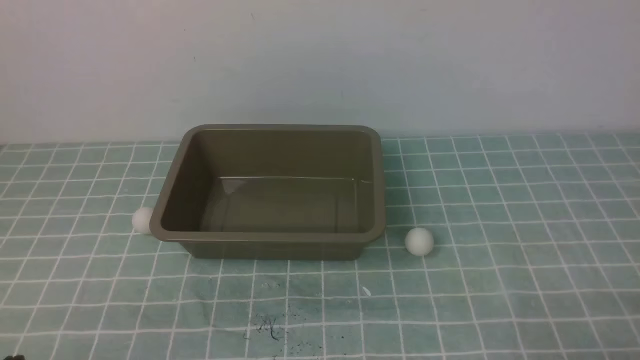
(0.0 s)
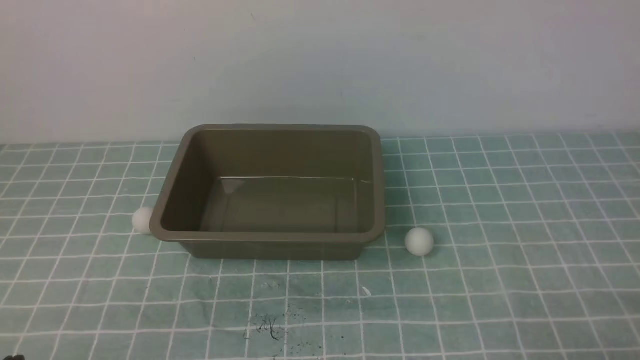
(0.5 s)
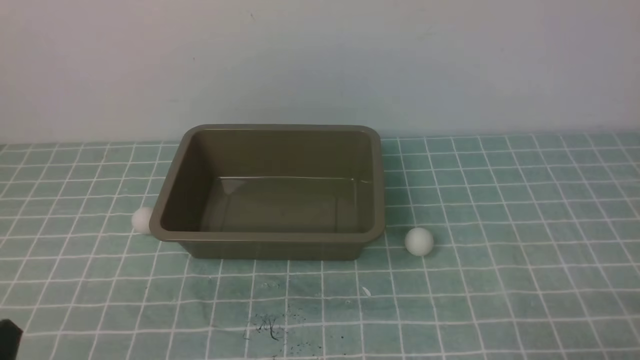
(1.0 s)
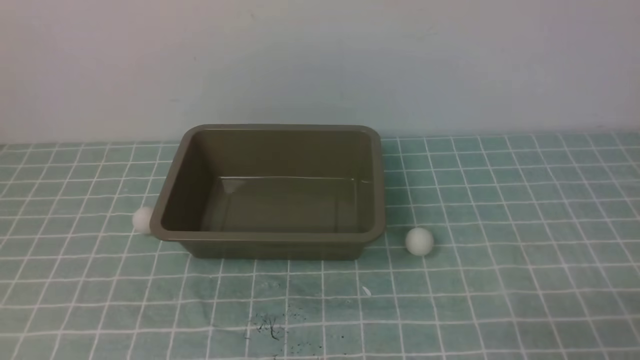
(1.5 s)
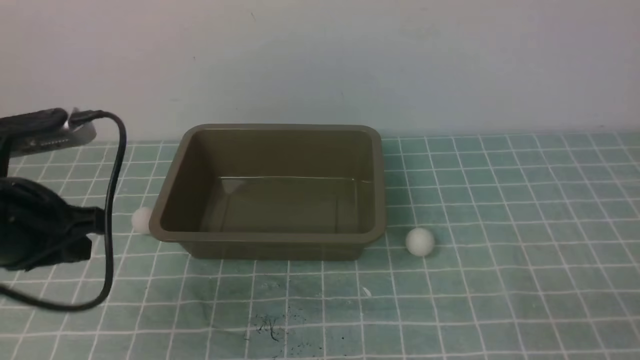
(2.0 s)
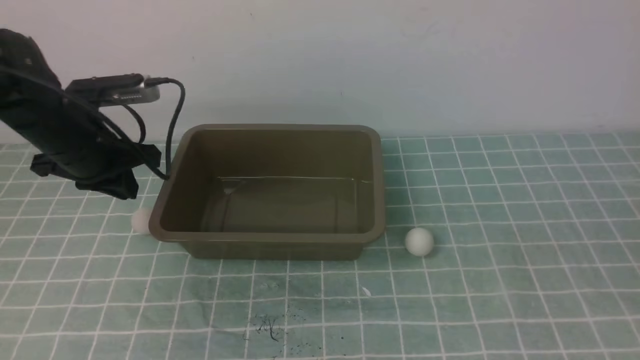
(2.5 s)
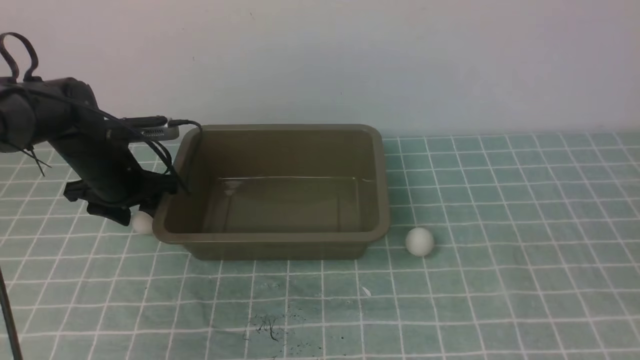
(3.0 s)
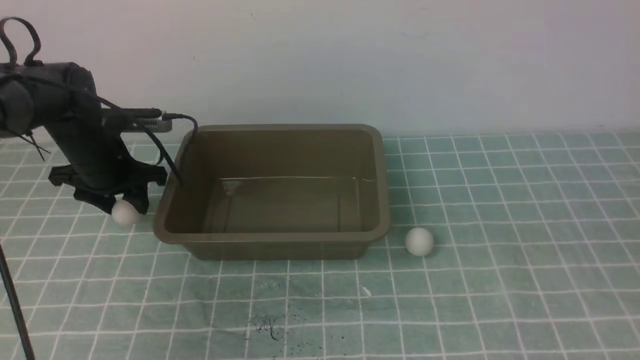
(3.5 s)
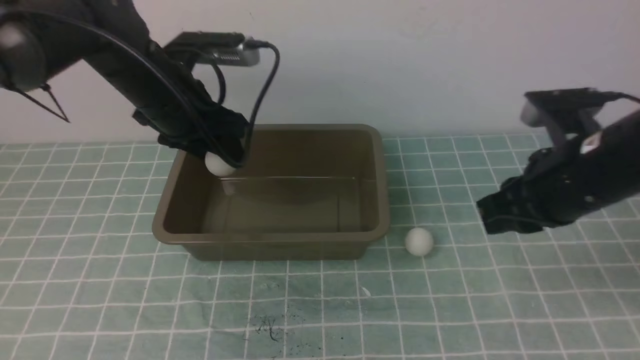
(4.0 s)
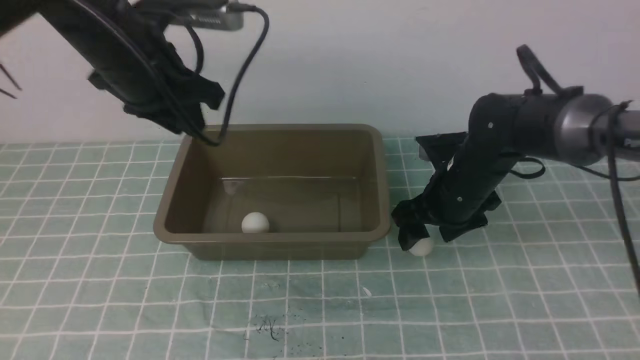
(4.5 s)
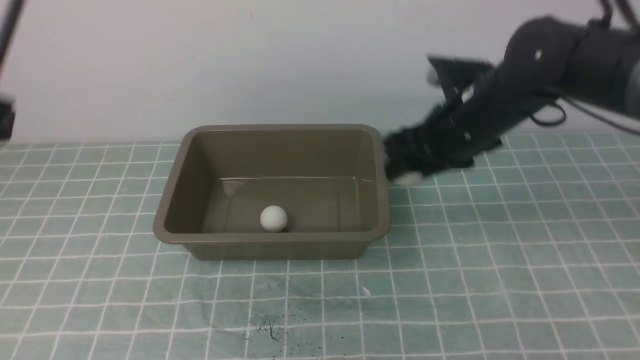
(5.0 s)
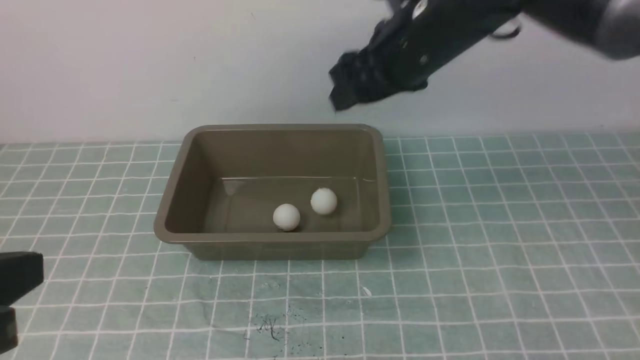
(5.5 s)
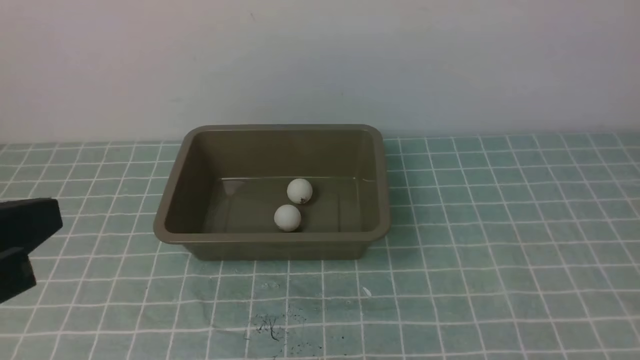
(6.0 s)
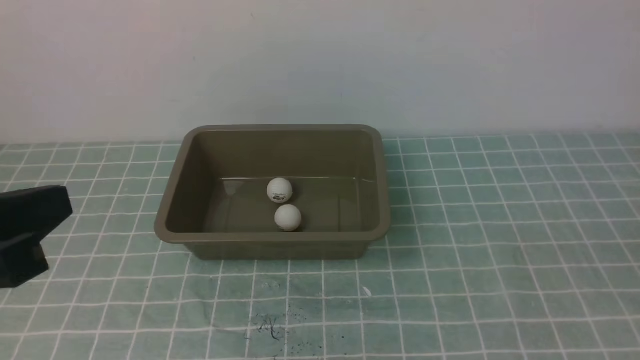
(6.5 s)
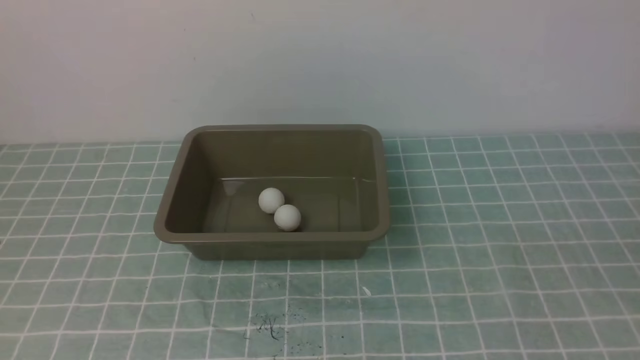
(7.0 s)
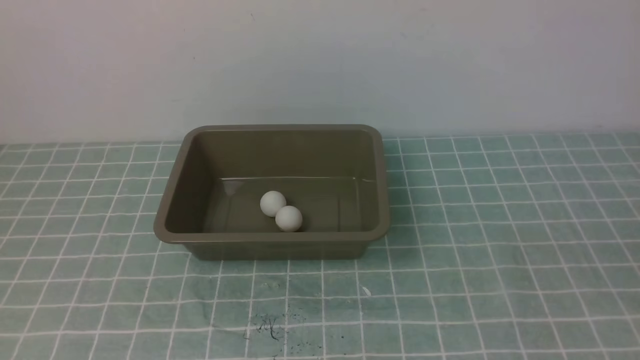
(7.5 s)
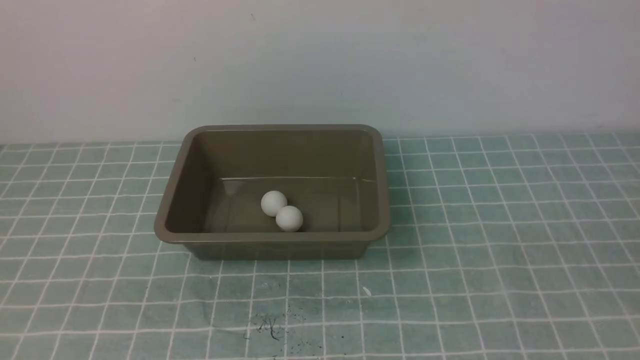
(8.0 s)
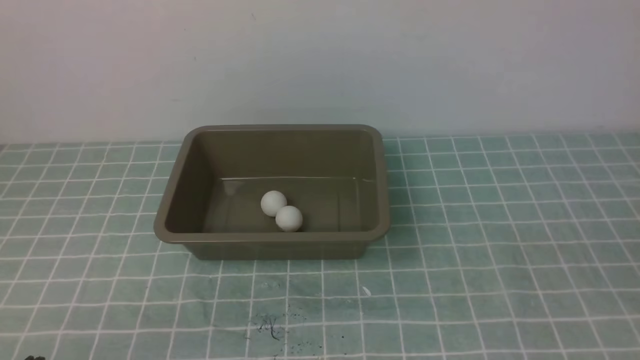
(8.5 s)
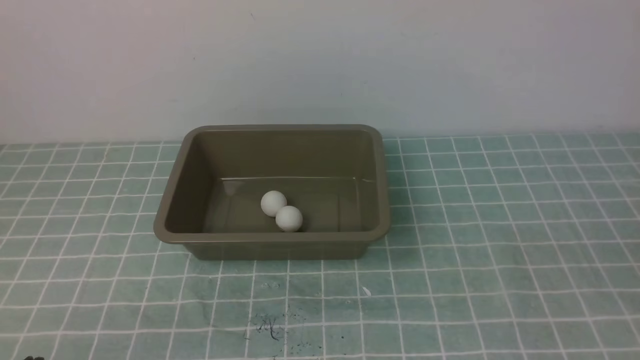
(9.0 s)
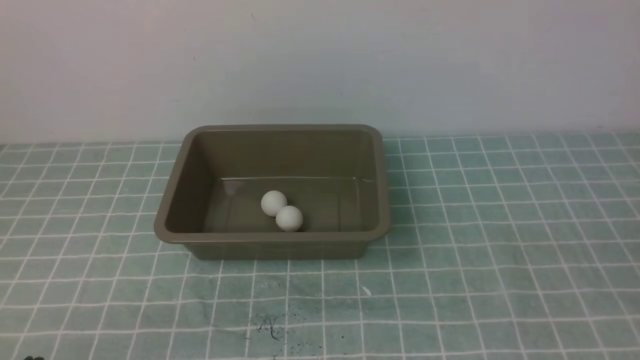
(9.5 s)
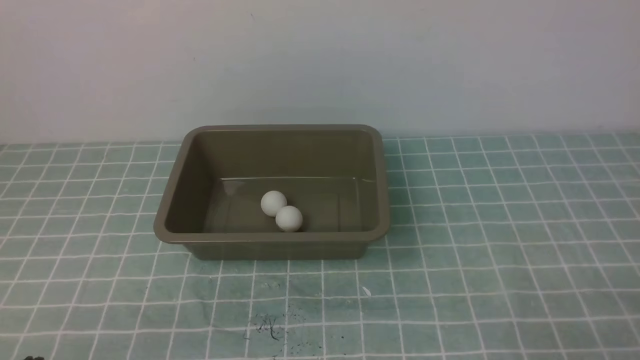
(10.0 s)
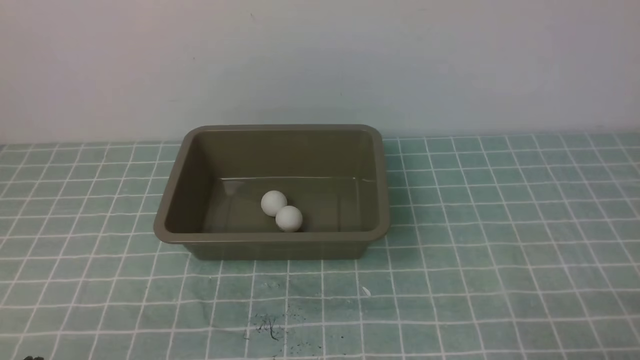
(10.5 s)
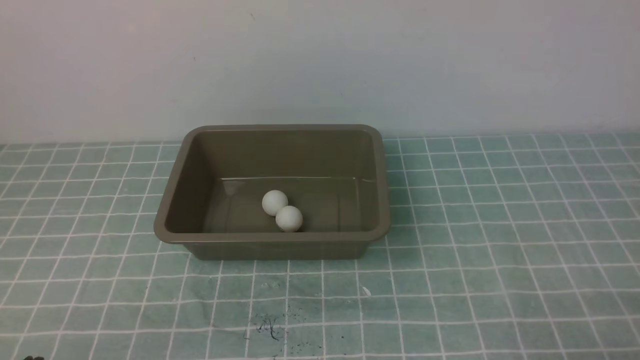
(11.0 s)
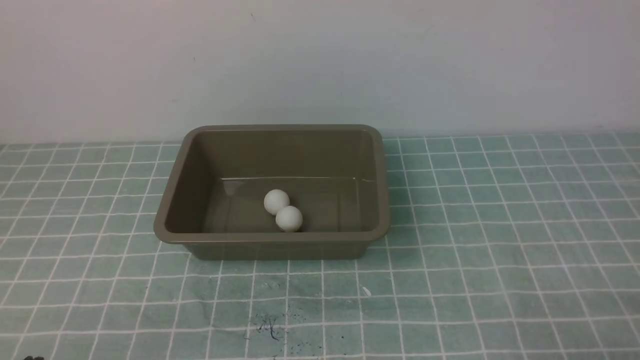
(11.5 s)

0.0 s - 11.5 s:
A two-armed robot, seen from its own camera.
Step, 0.0 s - 3.5 s: use the left arm to clamp the table tennis ball closest to it.
Step, 4.5 s - 5.0 s: use the right arm to clamp the table tennis ball closest to it.
0.0 s - 2.0 s: The right gripper is displaced upward by approximately 5 cm, while the left gripper travels forward and upward by some 20 cm.
2.0 s - 4.0 s: The left gripper goes roughly 20 cm forward and to the right, and opens up, while the right gripper travels forward by roughly 25 cm, and opens its fingers.
4.0 s - 6.0 s: The right gripper shifts about 25 cm upward and backward, and closes its fingers, while the left gripper moves backward, approximately 30 cm, and closes its fingers.
6.0 s - 7.5 s: The left gripper shifts some 5 cm backward.

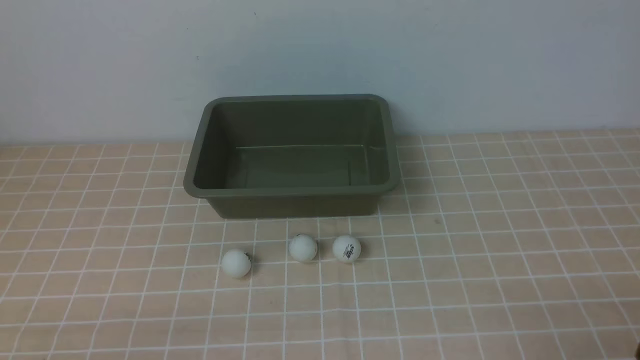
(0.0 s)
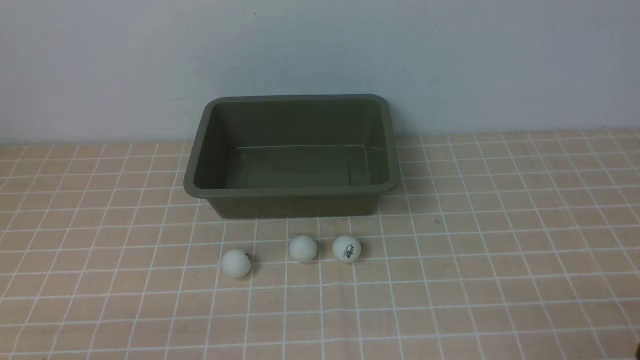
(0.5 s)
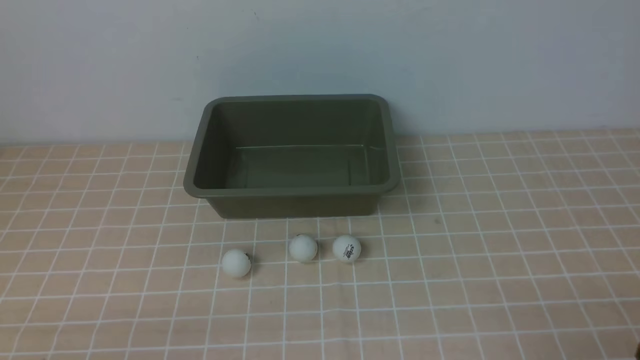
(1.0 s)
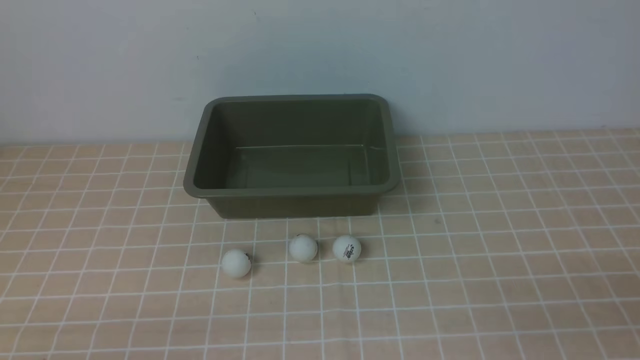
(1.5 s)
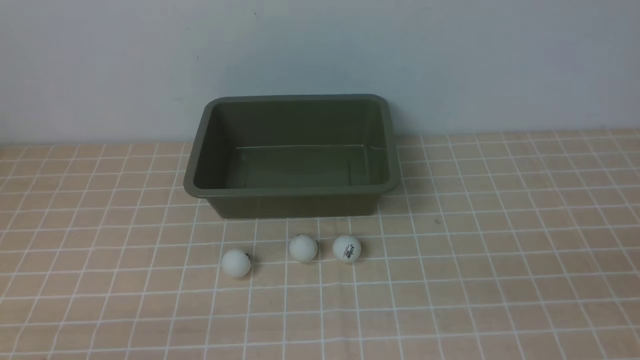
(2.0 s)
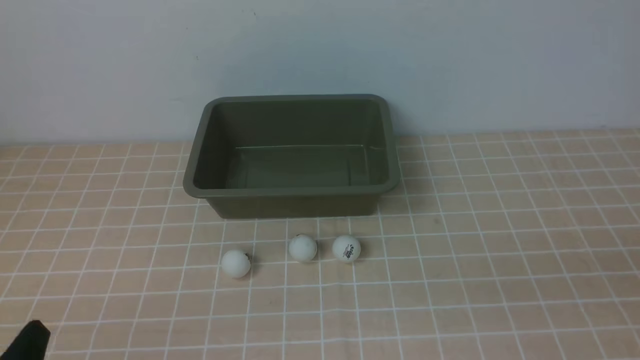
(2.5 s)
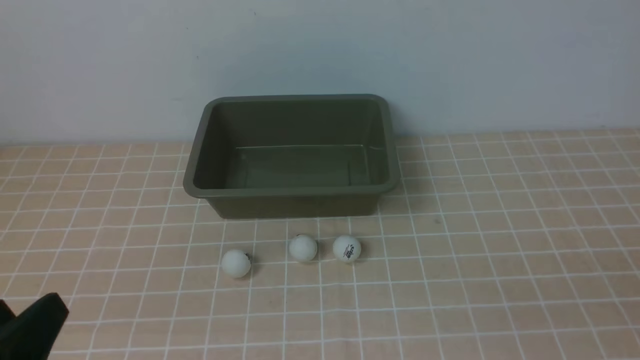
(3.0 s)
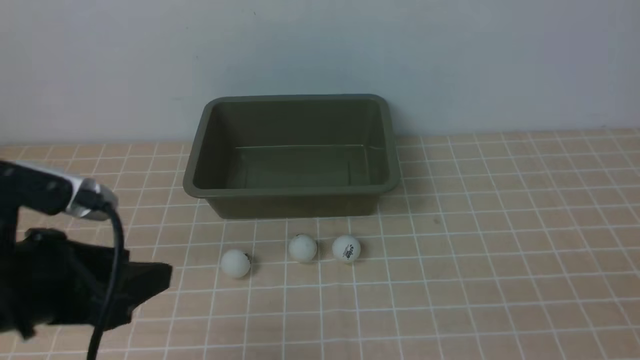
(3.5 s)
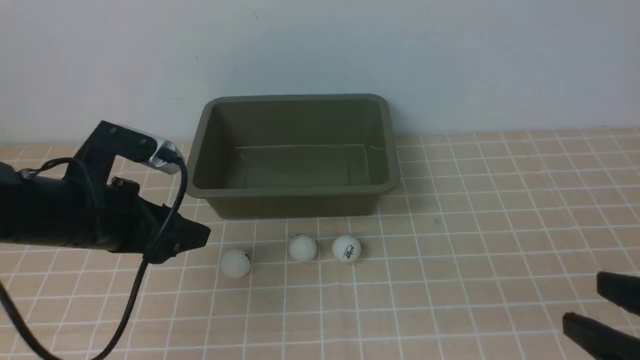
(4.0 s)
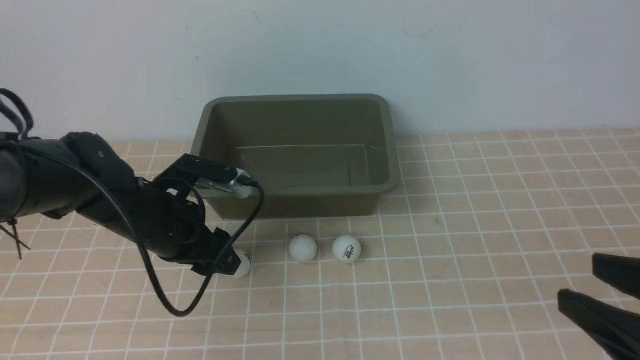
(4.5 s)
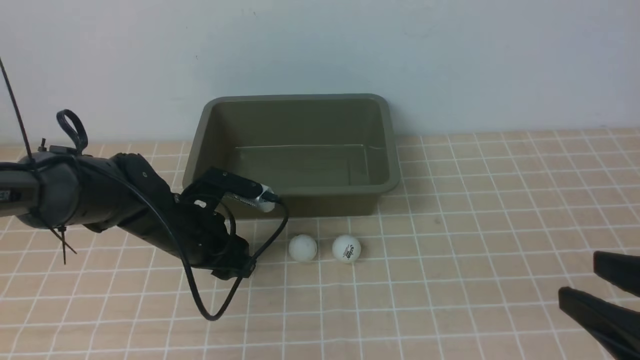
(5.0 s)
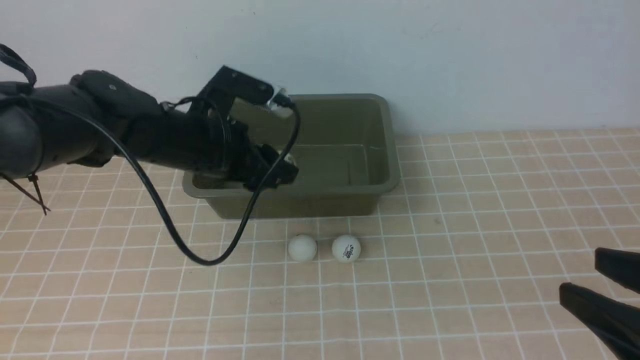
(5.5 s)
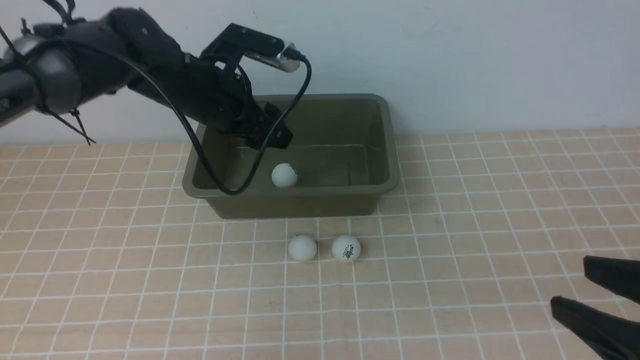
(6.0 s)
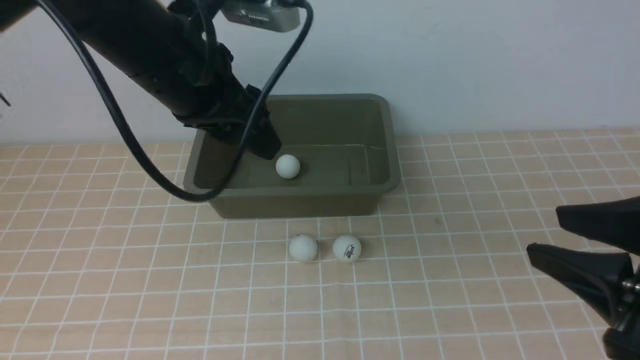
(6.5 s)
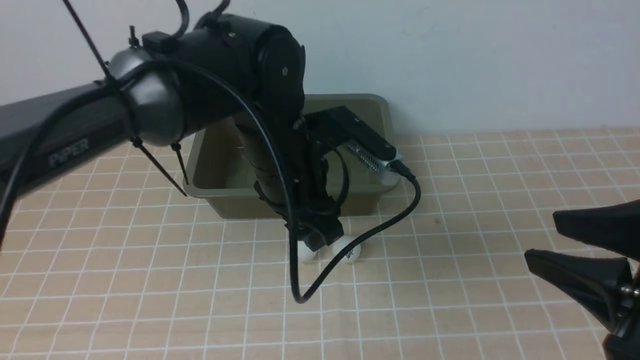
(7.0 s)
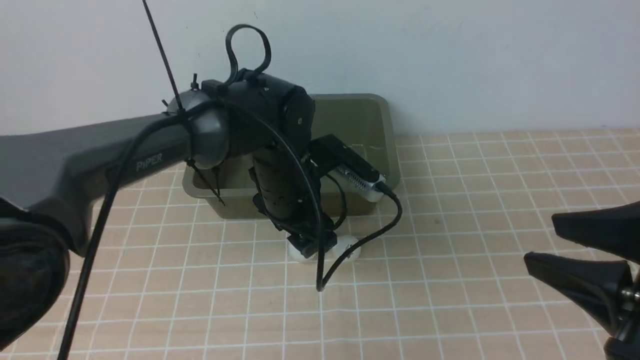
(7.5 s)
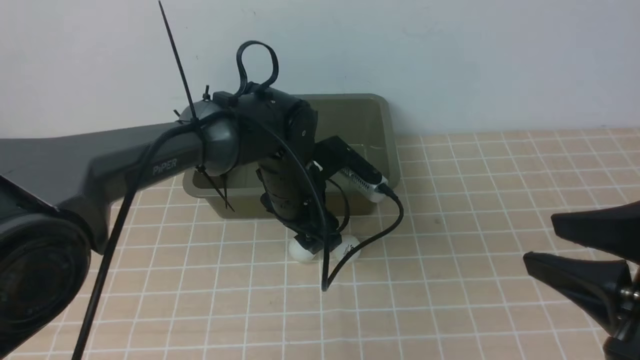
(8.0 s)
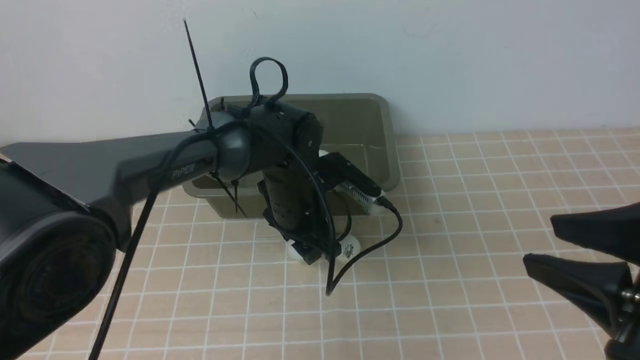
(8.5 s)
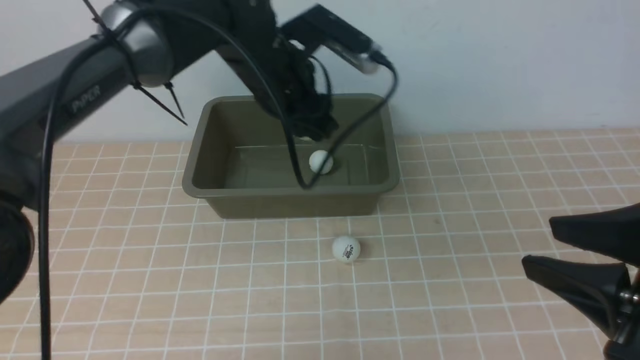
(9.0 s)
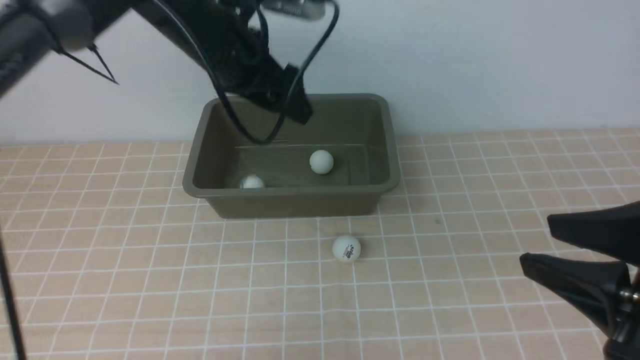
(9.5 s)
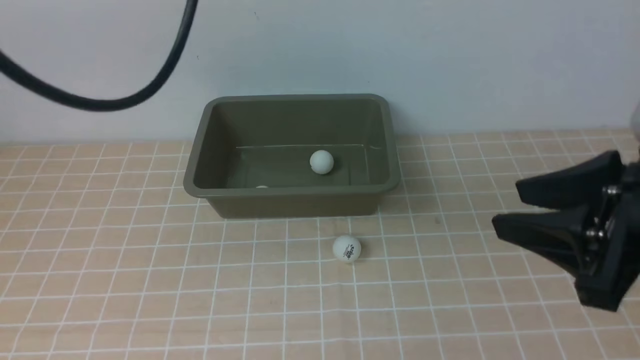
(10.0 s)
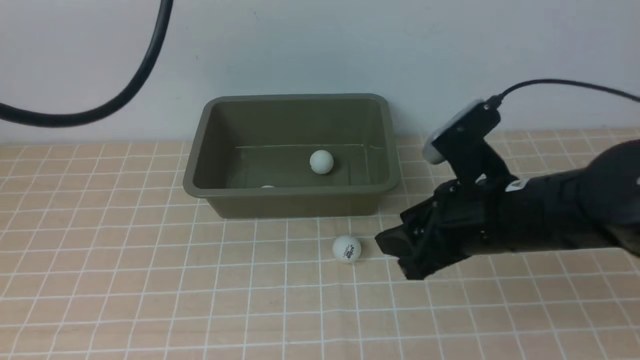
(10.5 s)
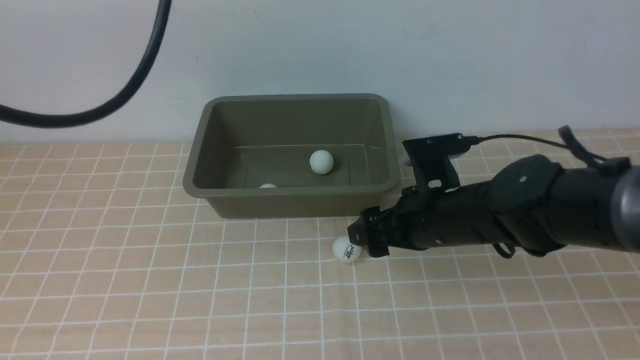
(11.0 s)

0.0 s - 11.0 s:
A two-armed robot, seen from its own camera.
Step, 0.0 s - 5.0 s: use the left arm to clamp the table tennis ball closest to it.
Step, 5.5 s - 6.0 s: use the left arm to put the table tennis ball into the box.
Step, 6.5 s - 8.5 s: use the left arm to clamp the table tennis ball closest to it.
Step, 9.0 s - 9.5 s: use the left arm to put the table tennis ball into the box.
2.0 s - 3.5 s: The left gripper is displaced forward and upward by roughly 15 cm.
3.5 s - 5.5 s: The right gripper goes about 5 cm forward; the left gripper travels forward by about 20 cm, and closes its fingers.
5.5 s - 7.5 s: The left gripper goes about 10 cm to the right, reaches roughly 10 cm upward, then returns, and opens its fingers.
7.5 s - 9.0 s: The left gripper shifts some 10 cm upward and forward, and closes.
9.0 s - 11.0 s: The left gripper heads upward and backward, covering some 25 cm, and opens and closes again, while the right gripper heads forward, to the left and downward, covering some 25 cm, and opens up.
